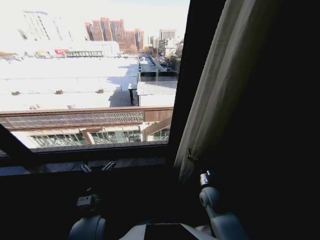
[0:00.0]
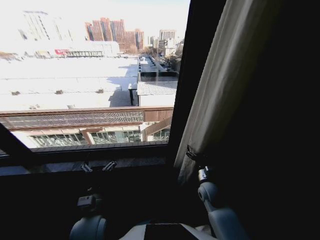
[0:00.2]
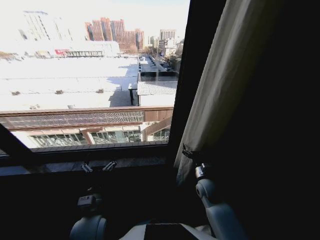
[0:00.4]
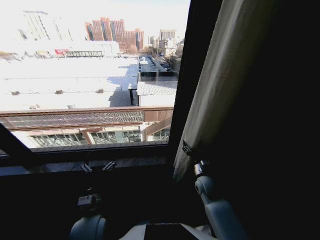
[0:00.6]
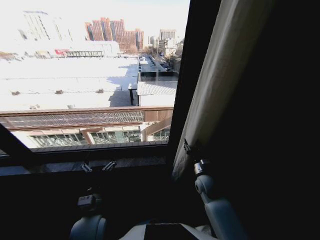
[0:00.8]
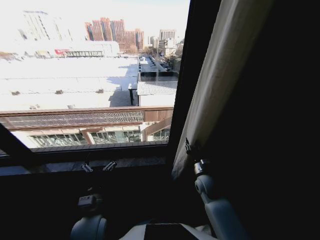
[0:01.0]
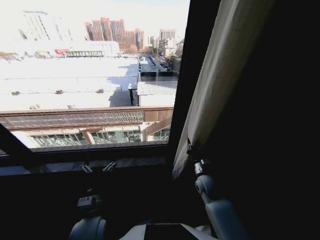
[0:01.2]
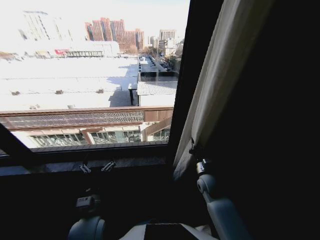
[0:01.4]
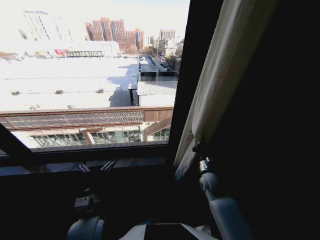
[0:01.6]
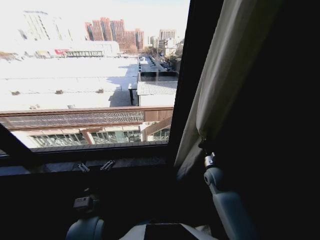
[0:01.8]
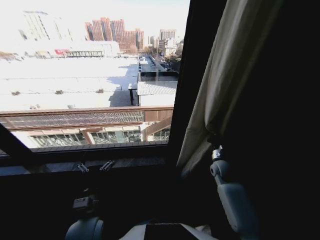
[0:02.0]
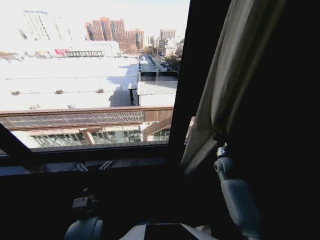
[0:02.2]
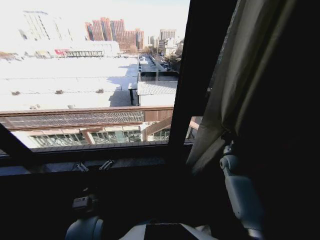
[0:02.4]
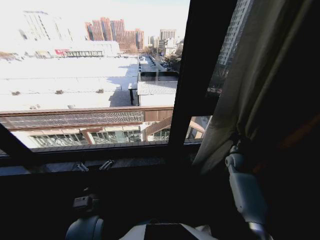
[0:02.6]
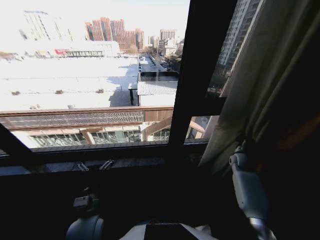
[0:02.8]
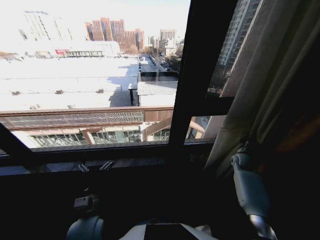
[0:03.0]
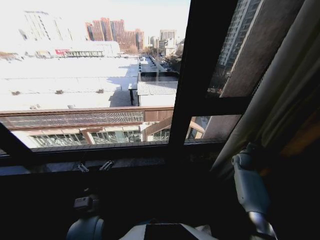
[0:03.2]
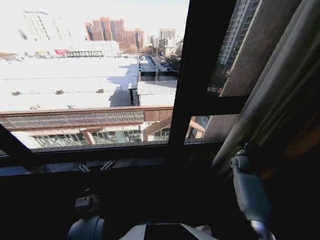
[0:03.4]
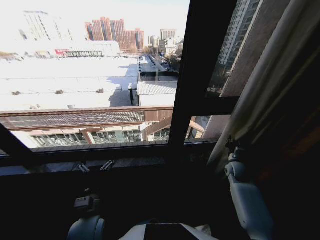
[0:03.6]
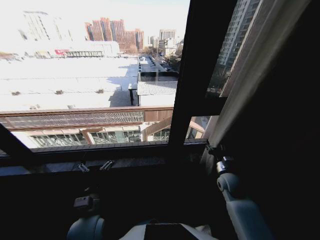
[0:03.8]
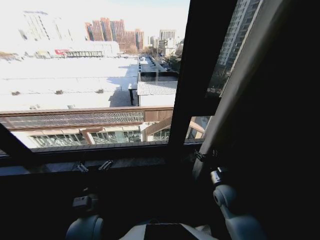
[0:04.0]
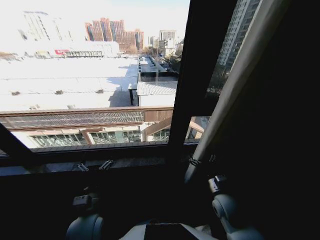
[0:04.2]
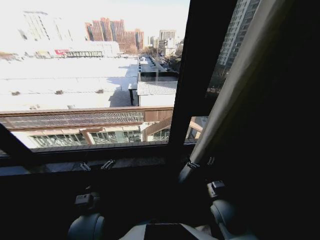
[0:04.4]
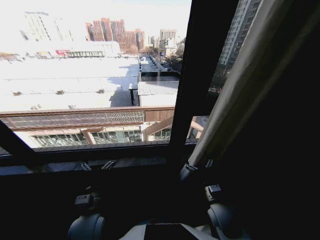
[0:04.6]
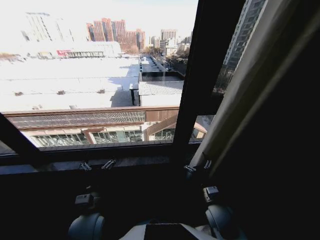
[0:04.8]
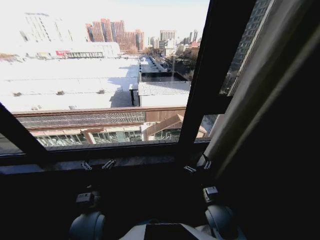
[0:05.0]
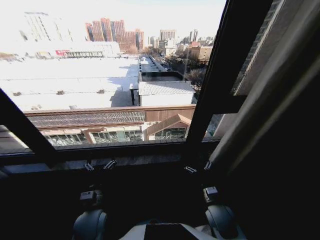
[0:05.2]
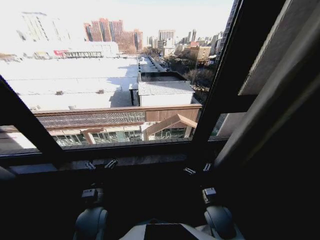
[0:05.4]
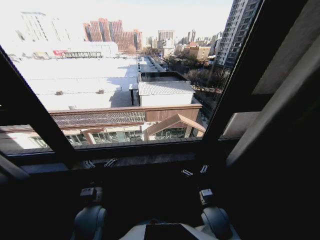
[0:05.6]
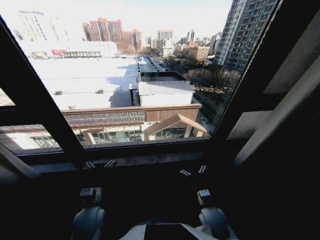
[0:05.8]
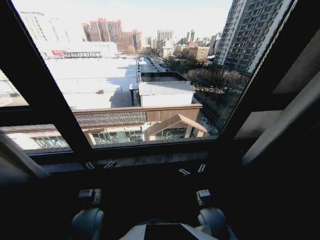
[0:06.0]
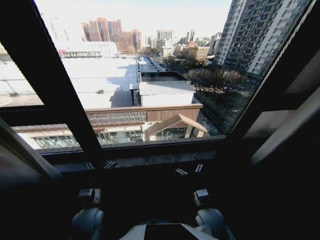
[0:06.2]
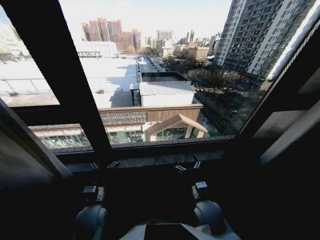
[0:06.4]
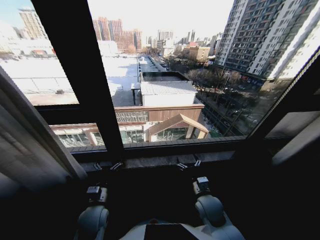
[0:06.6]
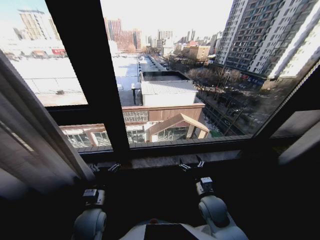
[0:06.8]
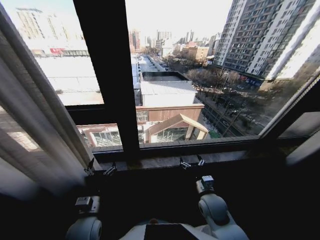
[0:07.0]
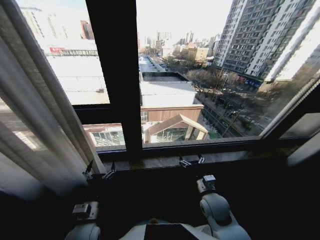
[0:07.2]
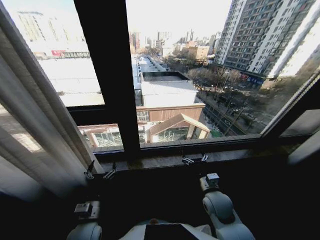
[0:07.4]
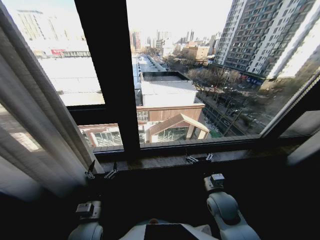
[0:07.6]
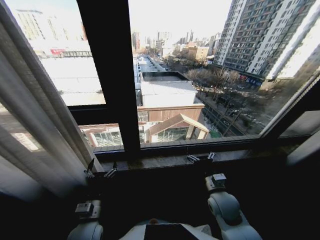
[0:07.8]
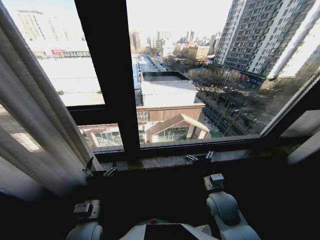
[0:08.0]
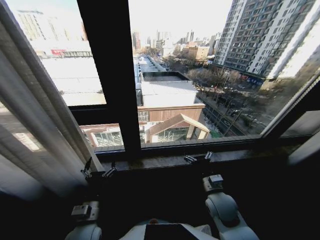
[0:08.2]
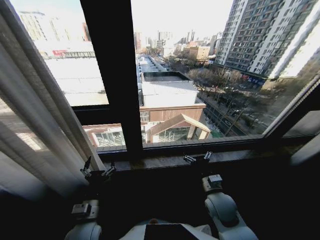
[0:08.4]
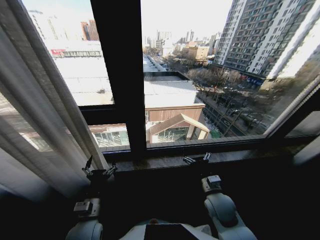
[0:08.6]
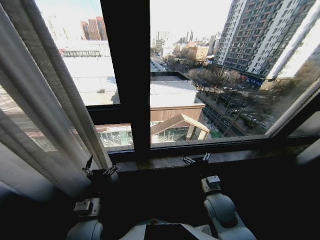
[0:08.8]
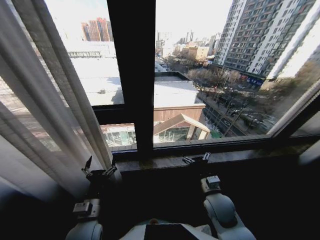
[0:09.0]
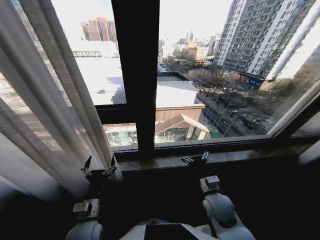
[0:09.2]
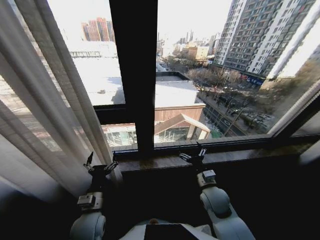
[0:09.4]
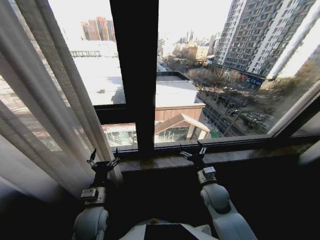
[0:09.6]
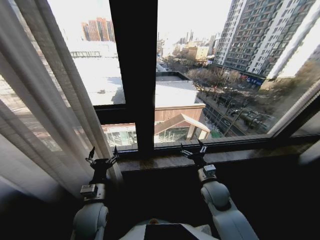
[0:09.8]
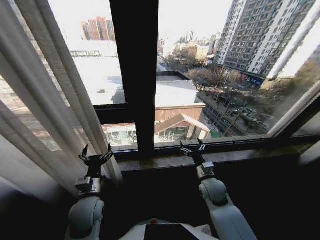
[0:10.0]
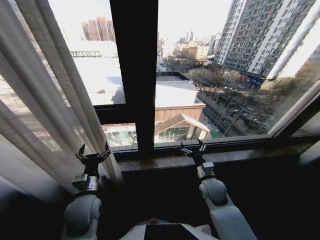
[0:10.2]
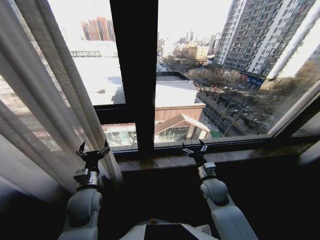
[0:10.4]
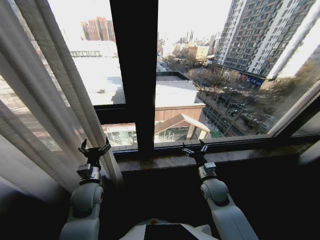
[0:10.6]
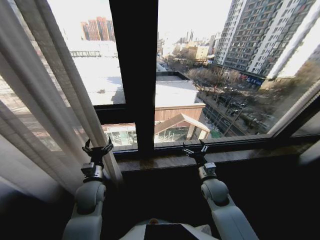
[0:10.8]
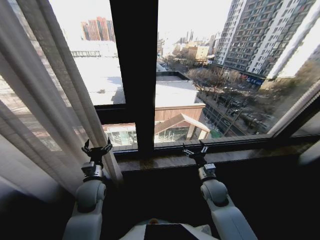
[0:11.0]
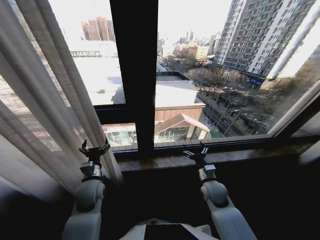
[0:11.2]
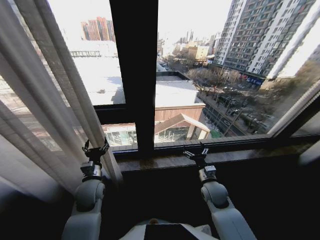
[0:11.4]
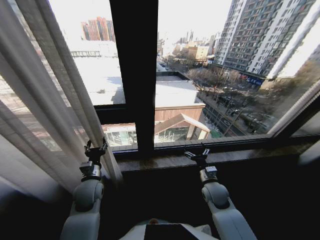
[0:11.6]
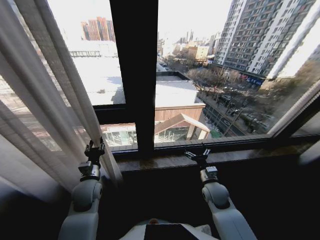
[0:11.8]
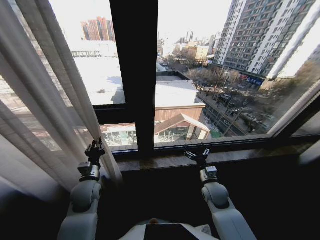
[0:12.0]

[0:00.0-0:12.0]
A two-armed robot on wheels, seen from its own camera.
Task of the whole recording: Open the curtains by pulling them apart, changing their state from closed to fully open.
0:00.0 to 0:01.6: The right gripper moves forward, about 5 cm, and closes up.
0:01.6 to 0:03.0: The right gripper travels to the right and forward by approximately 25 cm.
0:03.0 to 0:04.4: The right gripper shifts approximately 30 cm to the left and backward, and opens its fingers.
0:04.4 to 0:06.0: The right gripper shifts by approximately 5 cm.
0:06.0 to 0:07.6: The right gripper changes place by some 5 cm.
0:09.0 to 0:10.4: The two grippers go roughly 5 cm forward.
0:10.4 to 0:12.0: The left gripper moves about 5 cm, and closes.

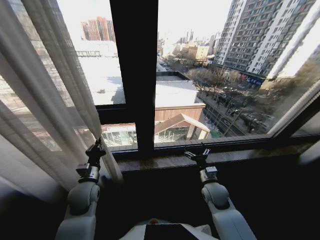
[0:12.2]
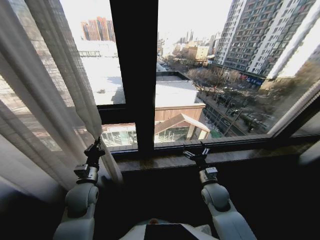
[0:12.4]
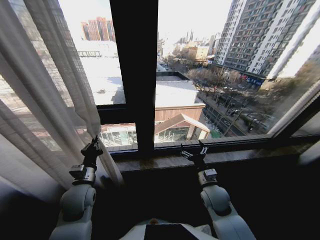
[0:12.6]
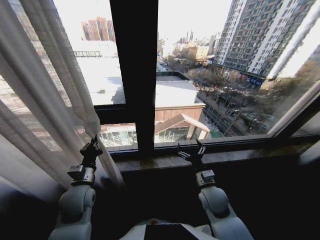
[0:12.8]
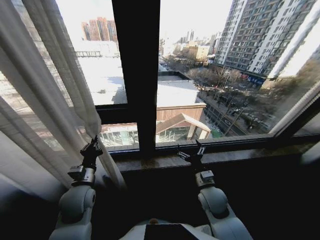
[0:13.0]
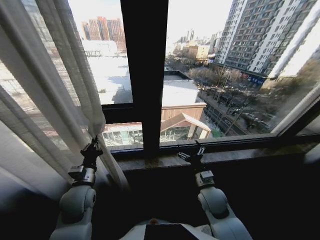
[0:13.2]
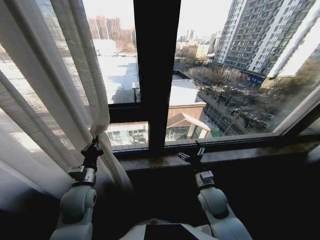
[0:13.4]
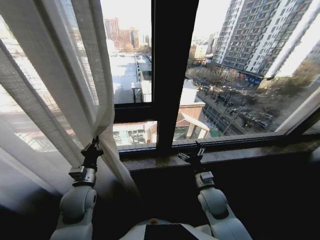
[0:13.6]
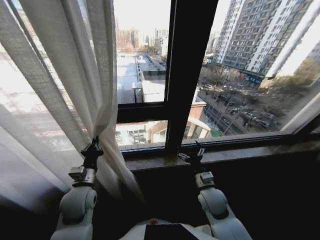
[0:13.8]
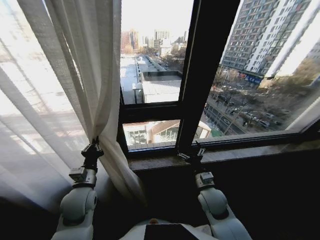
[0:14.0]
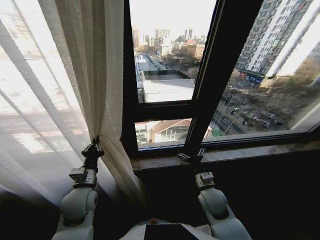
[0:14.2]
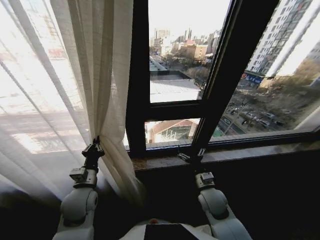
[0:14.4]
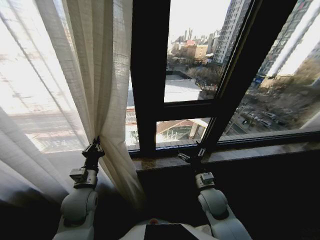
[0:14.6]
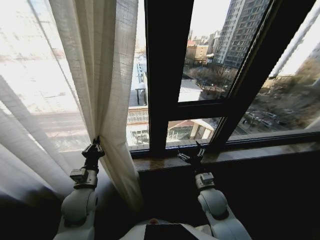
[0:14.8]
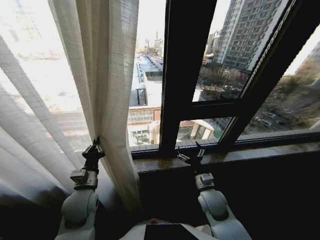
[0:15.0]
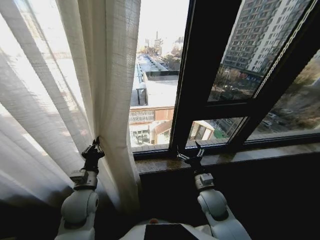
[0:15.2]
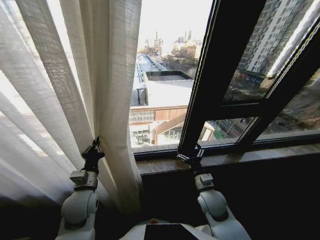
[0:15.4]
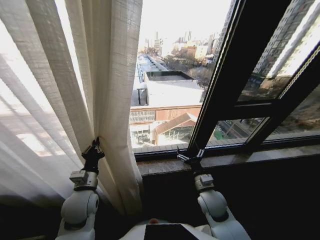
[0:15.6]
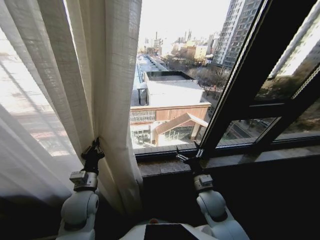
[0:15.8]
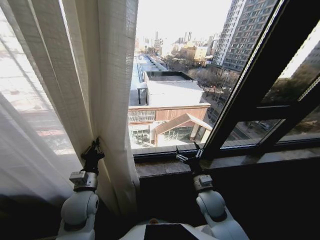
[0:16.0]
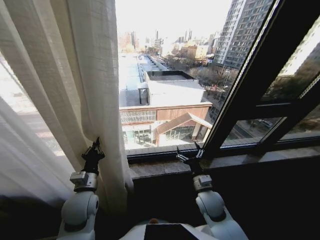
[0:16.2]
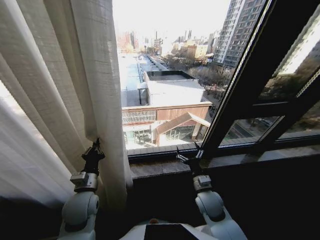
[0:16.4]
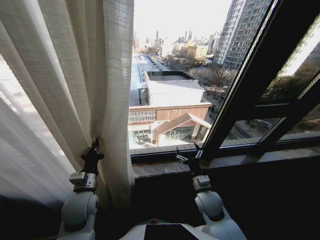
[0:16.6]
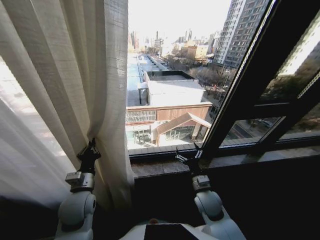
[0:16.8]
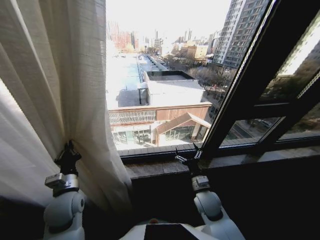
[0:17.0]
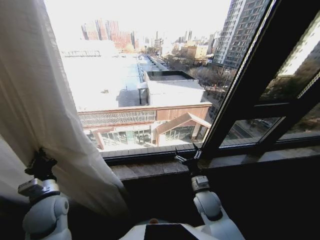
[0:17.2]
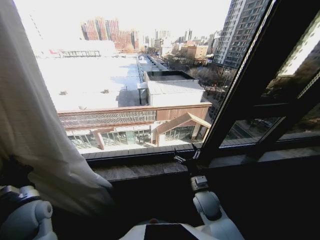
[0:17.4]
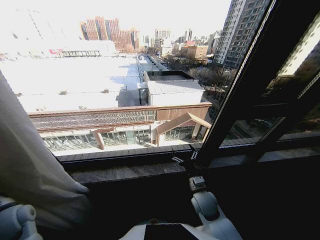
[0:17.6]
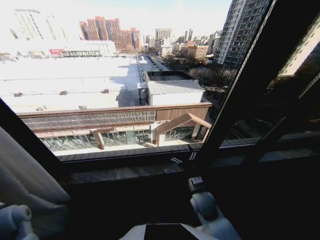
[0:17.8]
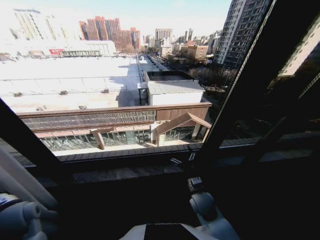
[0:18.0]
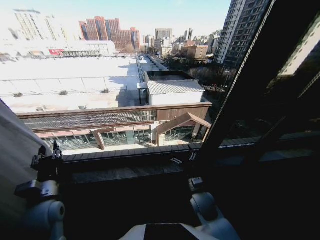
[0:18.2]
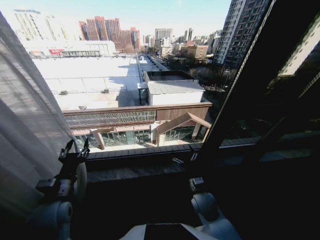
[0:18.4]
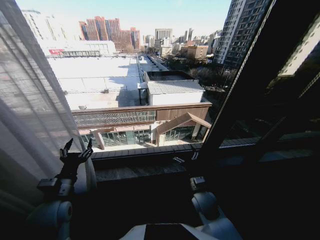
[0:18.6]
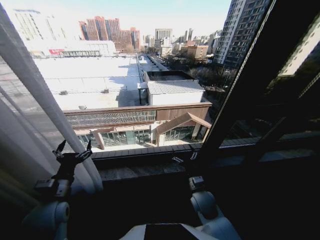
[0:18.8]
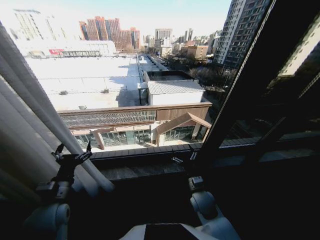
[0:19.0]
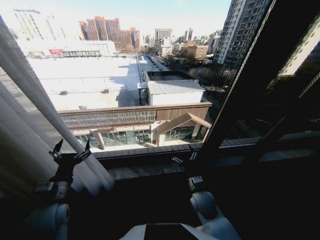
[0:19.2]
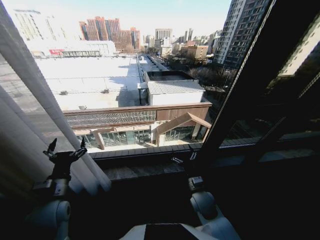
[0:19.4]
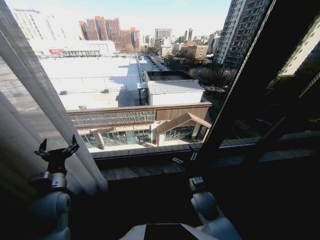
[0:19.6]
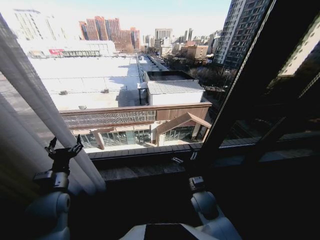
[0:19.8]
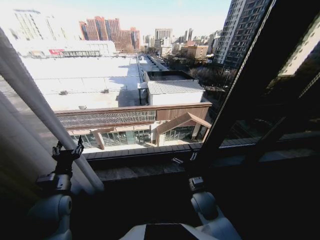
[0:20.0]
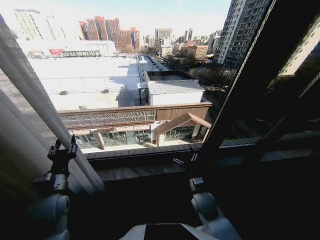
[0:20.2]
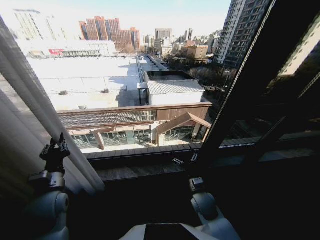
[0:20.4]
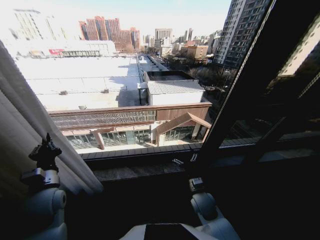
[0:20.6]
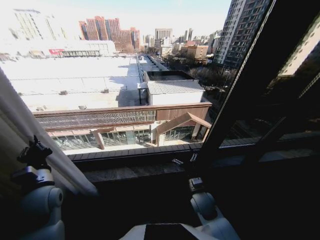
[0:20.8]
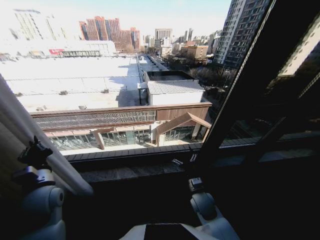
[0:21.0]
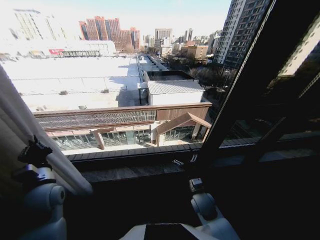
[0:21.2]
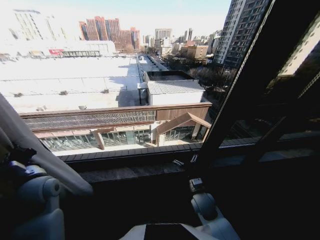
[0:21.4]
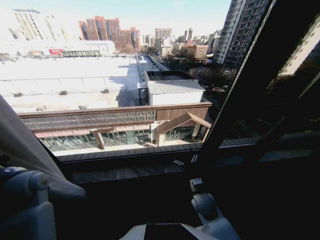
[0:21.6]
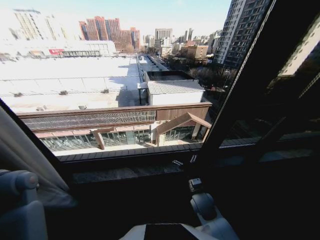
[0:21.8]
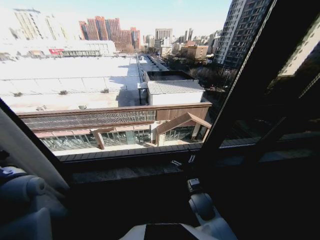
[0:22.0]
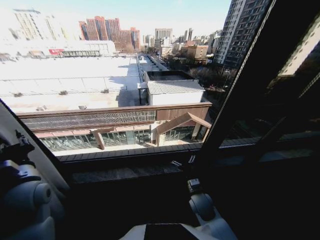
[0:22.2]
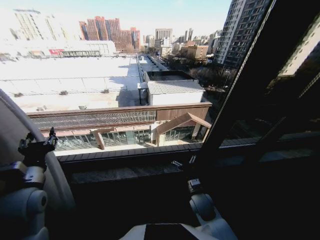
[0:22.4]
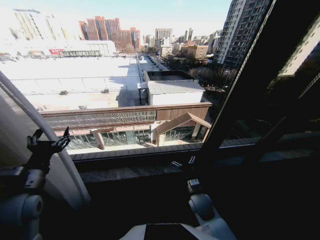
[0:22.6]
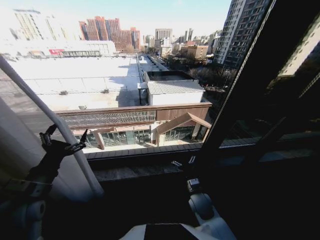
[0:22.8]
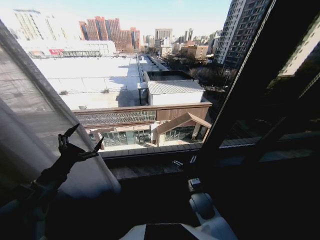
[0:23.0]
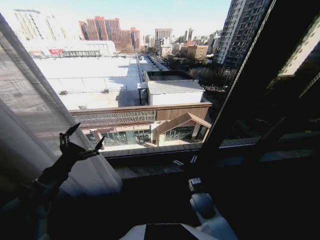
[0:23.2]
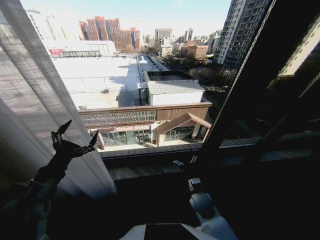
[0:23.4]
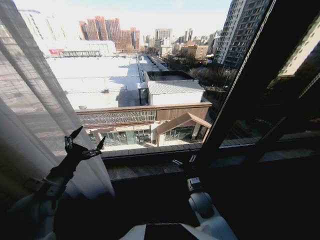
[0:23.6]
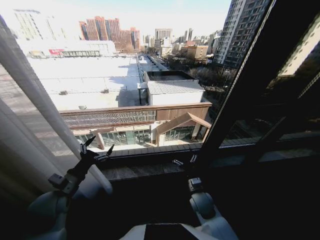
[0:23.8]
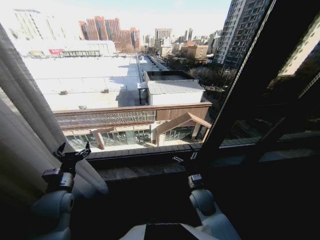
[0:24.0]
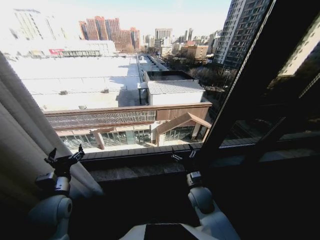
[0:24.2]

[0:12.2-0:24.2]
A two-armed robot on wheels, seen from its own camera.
Task of the whole recording: Open the curtains by pulling them apart, changing their state from closed to fully open.
0:12.2 to 0:13.8: The right gripper shifts by roughly 5 cm.
0:16.6 to 0:18.2: The left gripper is displaced to the left by about 10 cm.
0:18.2 to 0:19.8: The left gripper opens up.
0:19.8 to 0:21.2: The left gripper closes.
0:21.2 to 0:22.6: The left gripper travels upward by roughly 5 cm, travels to the left and back again, roughly 10 cm each way, and opens.
0:22.6 to 0:24.2: The left gripper is displaced downward by about 10 cm.
